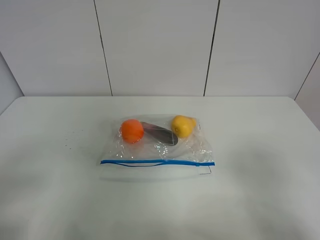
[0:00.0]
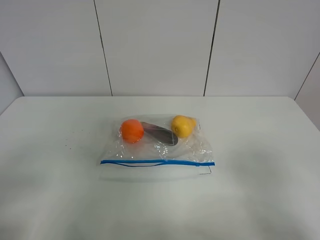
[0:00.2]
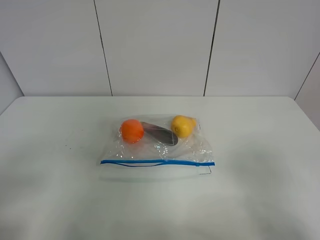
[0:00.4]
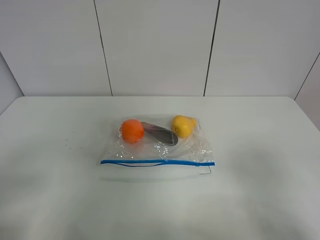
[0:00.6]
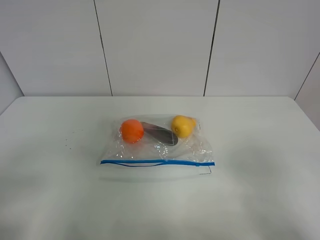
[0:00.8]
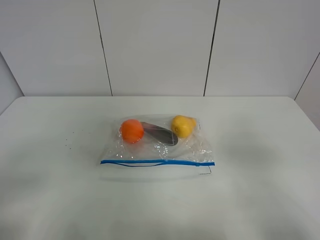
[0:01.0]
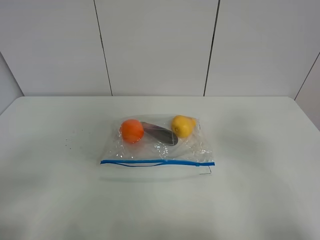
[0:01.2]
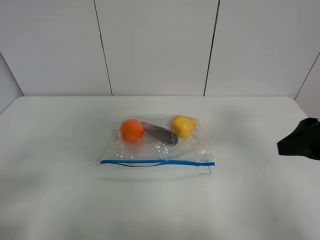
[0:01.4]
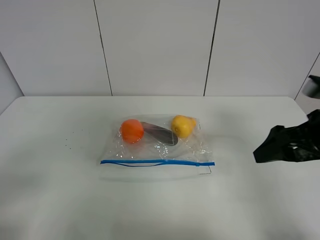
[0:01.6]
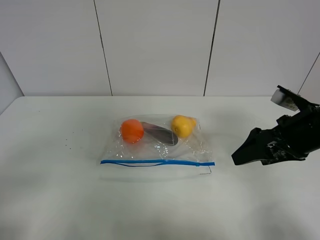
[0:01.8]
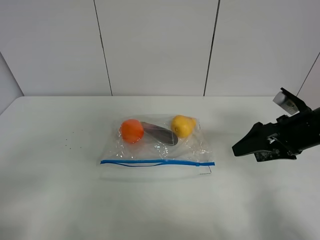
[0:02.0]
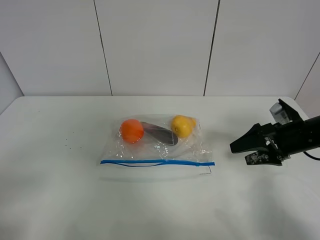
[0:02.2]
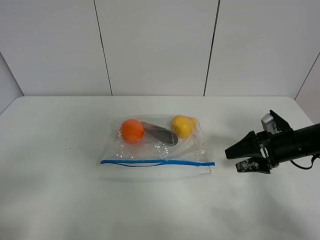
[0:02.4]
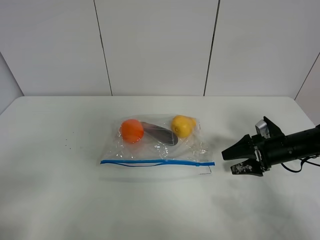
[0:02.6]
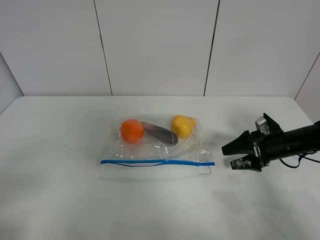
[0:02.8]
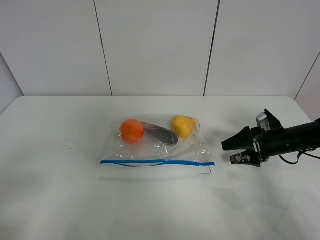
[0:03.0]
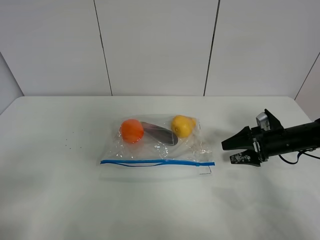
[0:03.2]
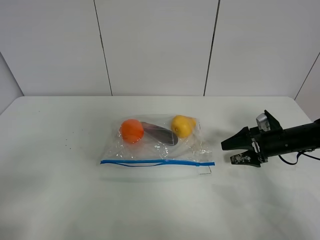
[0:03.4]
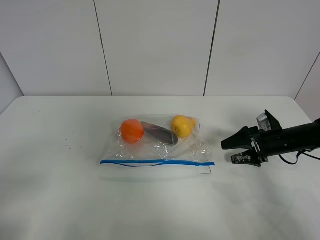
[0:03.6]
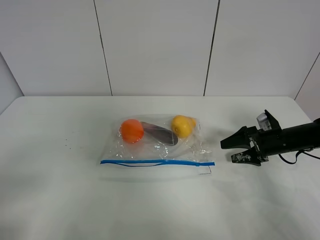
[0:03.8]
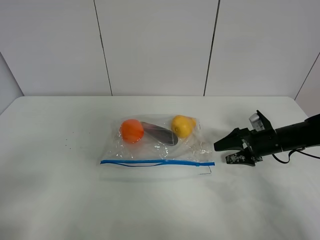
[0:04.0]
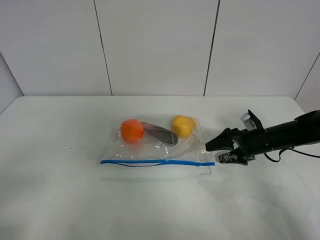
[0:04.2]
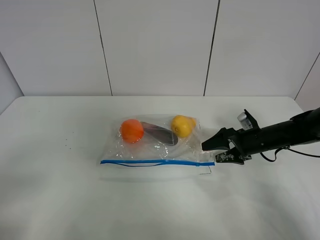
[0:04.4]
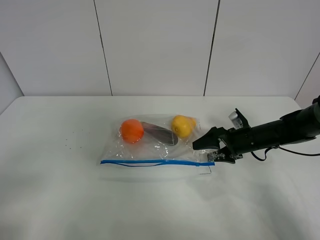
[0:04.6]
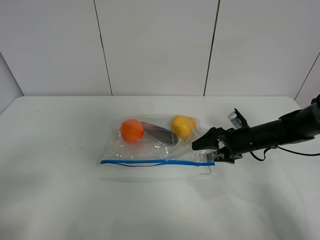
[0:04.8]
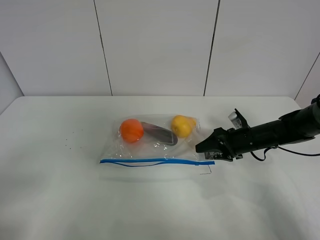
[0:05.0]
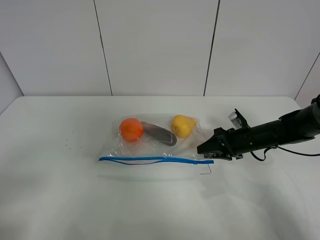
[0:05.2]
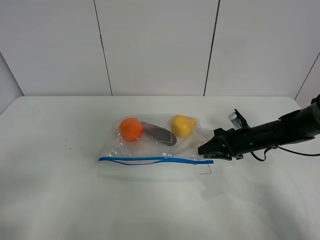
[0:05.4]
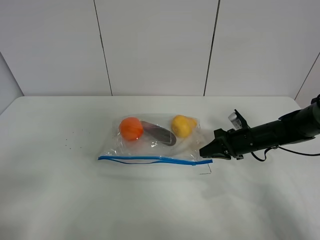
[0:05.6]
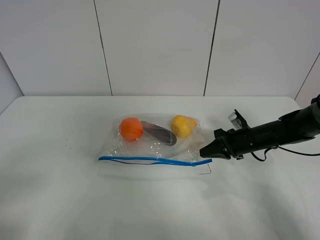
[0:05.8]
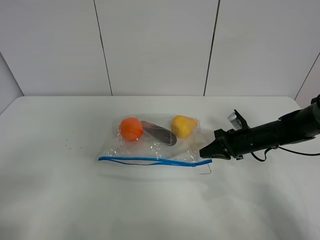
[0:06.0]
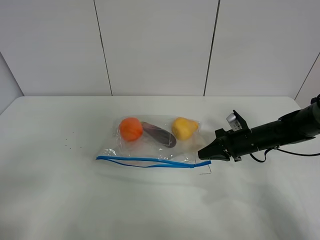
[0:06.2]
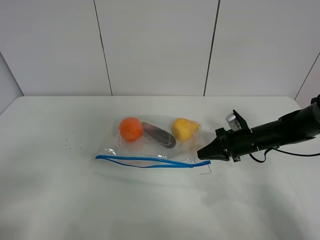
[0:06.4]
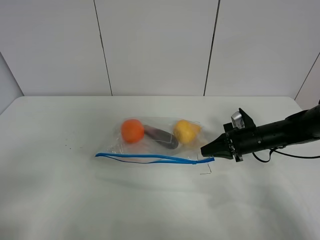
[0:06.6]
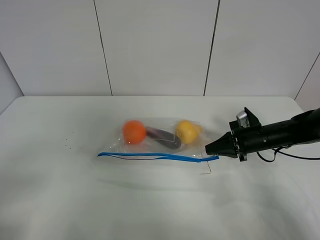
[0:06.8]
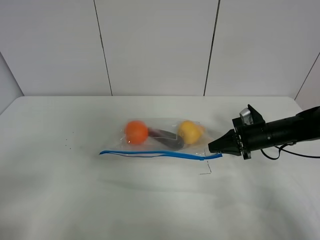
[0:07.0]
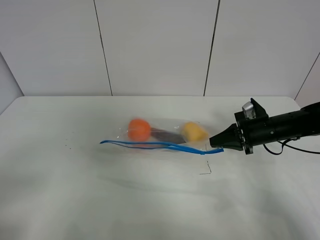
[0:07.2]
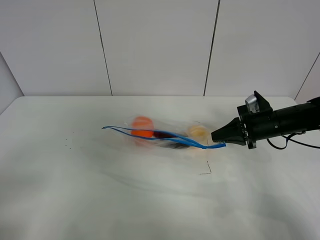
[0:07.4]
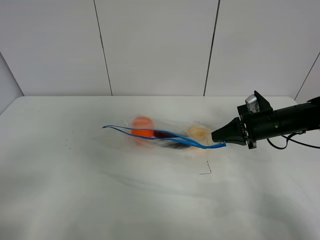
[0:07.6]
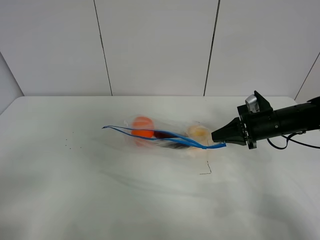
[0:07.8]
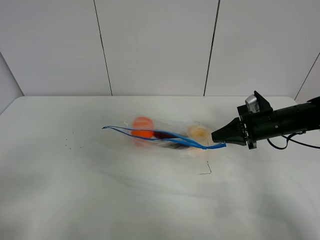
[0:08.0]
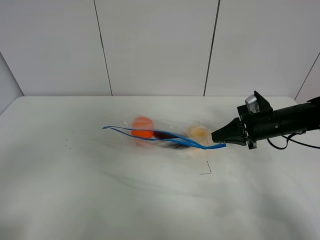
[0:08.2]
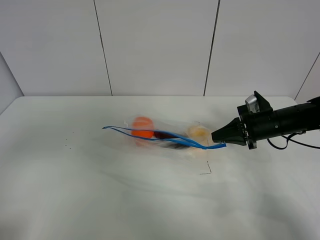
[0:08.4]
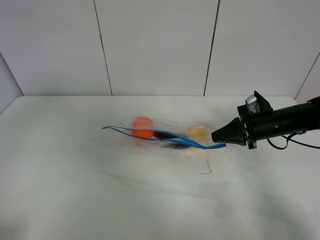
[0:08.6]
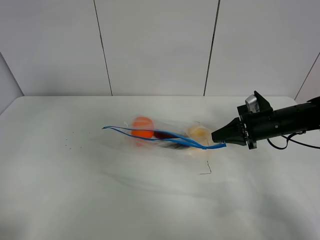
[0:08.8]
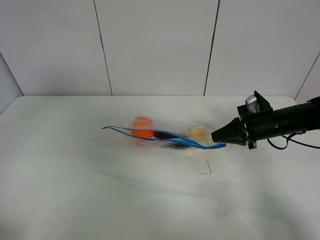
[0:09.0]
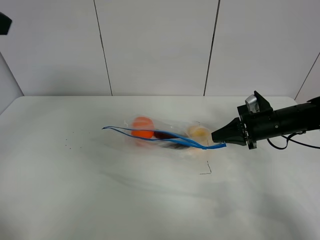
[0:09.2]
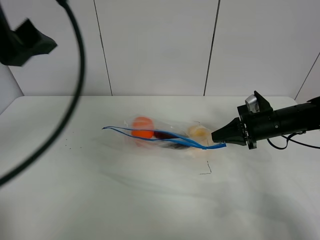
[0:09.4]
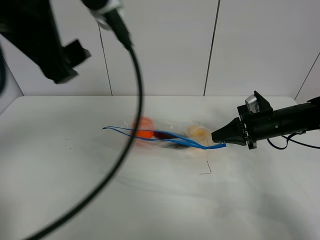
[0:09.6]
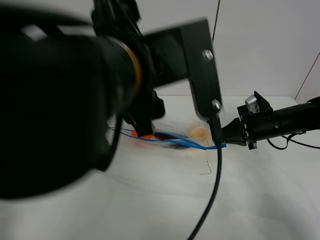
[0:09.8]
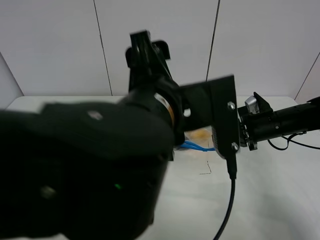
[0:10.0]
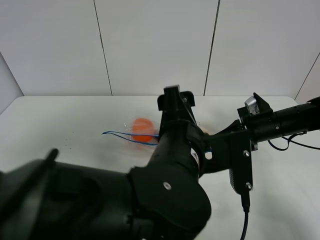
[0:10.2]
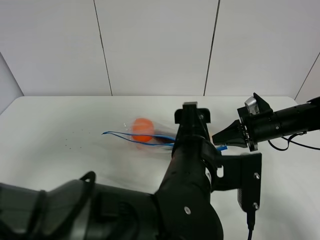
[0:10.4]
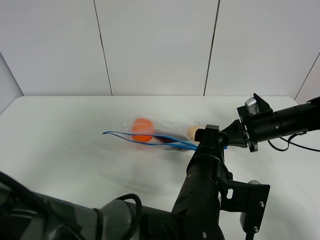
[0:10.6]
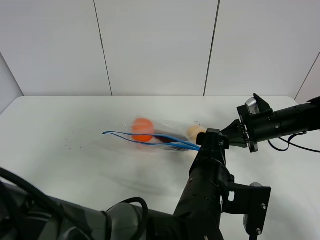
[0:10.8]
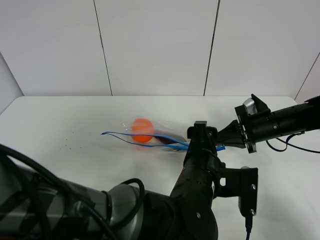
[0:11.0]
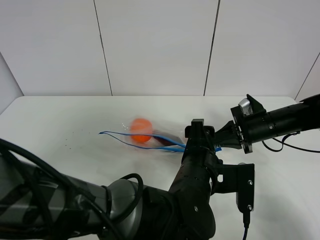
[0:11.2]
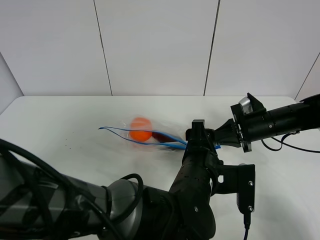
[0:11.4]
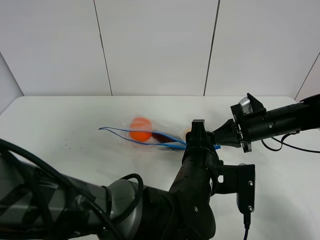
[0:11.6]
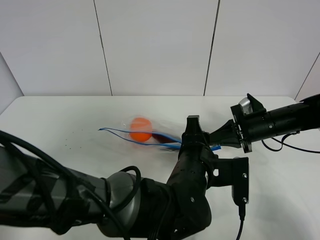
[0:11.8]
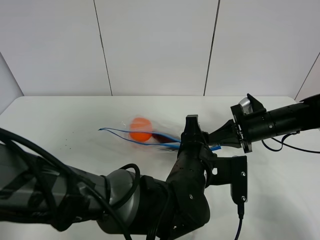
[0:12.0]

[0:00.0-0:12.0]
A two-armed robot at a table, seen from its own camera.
Step, 0:00.0 to 0:05.6: Grasp the fruit bag with right gripper.
Step, 0:05.8 to 0:07.6: Lift the fruit bag with your right gripper.
0:00.0 to 0:01.6: The right gripper is displaced forward by roughly 20 cm.
0:01.6 to 0:03.0: The right gripper shifts approximately 20 cm downward and forward.
0:03.0 to 0:04.4: The right gripper is displaced to the left by some 5 cm.
0:04.4 to 0:06.0: The right gripper closes up.
0:06.0 to 0:07.6: The right gripper goes approximately 5 cm upward.
0:07.6 to 0:09.0: The left gripper is displaced upward and forward by some 25 cm.
0:09.0 to 0:10.4: The left gripper goes about 40 cm to the right and downward.
0:10.4 to 0:12.0: The left gripper ends up approximately 5 cm from where it was, and closes.

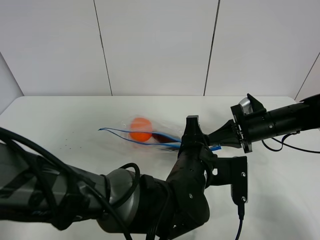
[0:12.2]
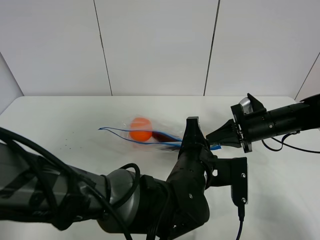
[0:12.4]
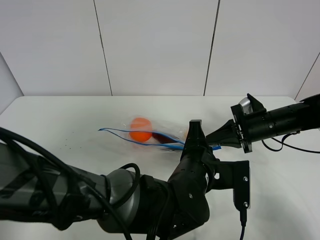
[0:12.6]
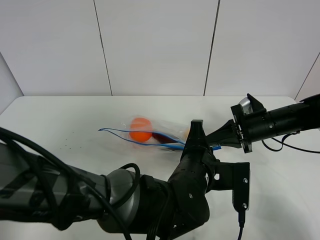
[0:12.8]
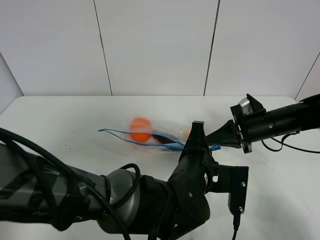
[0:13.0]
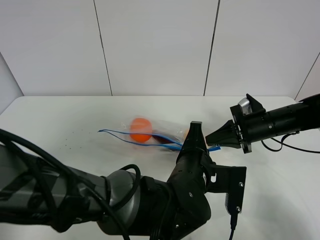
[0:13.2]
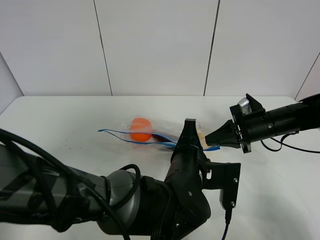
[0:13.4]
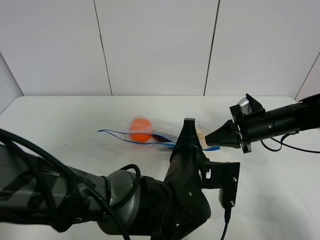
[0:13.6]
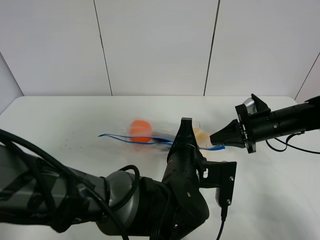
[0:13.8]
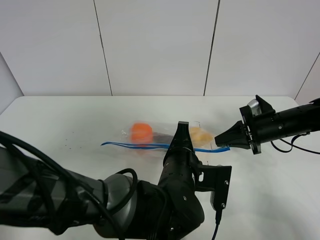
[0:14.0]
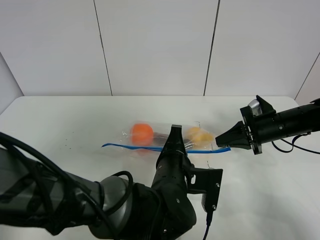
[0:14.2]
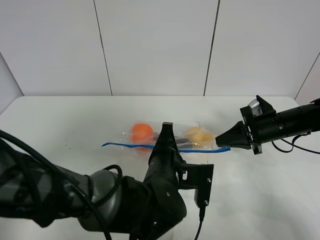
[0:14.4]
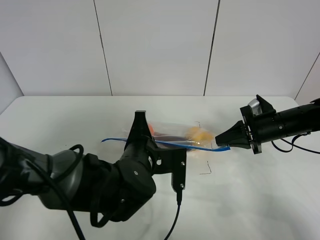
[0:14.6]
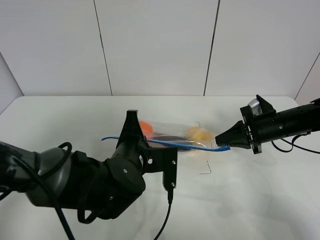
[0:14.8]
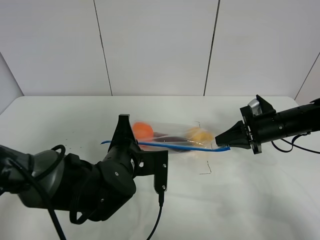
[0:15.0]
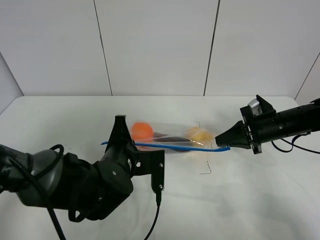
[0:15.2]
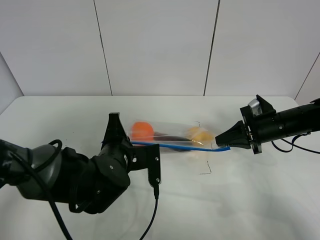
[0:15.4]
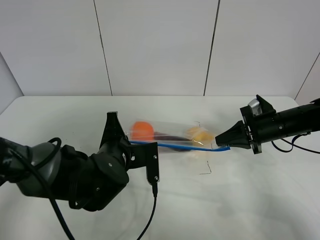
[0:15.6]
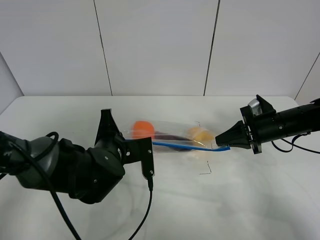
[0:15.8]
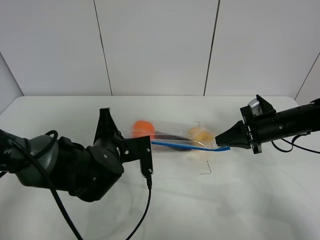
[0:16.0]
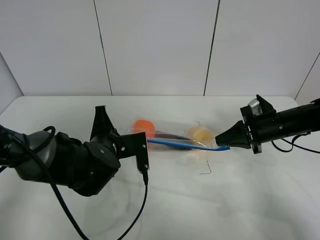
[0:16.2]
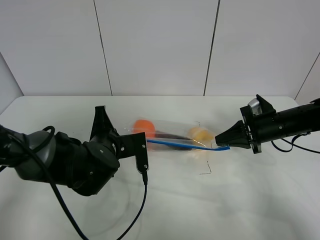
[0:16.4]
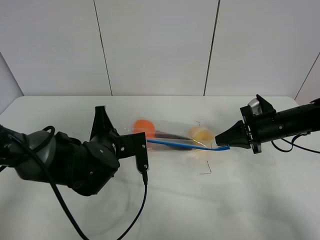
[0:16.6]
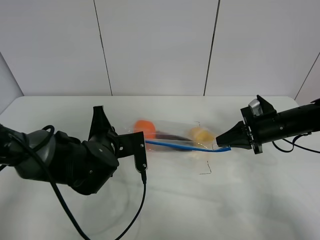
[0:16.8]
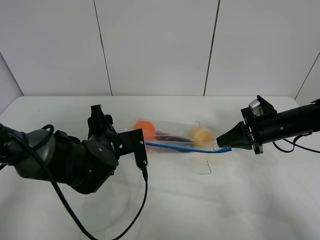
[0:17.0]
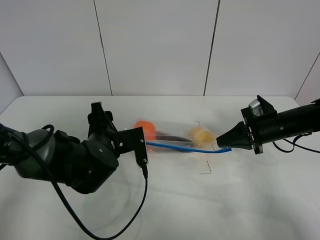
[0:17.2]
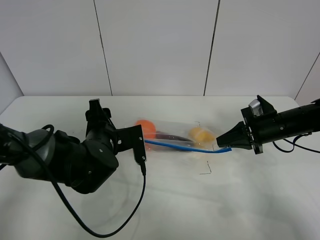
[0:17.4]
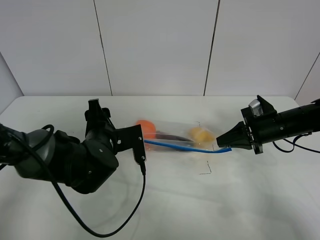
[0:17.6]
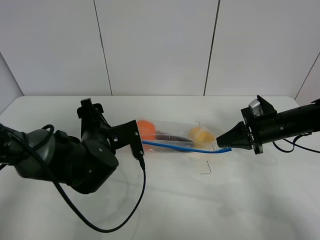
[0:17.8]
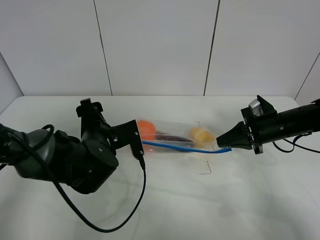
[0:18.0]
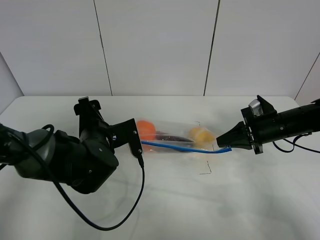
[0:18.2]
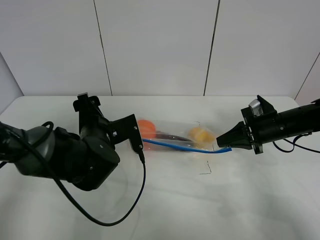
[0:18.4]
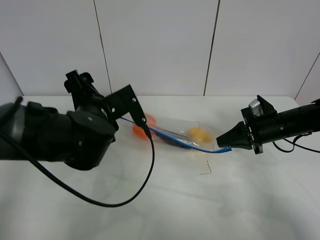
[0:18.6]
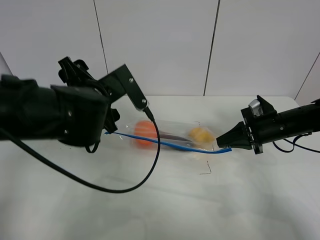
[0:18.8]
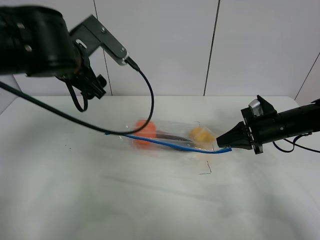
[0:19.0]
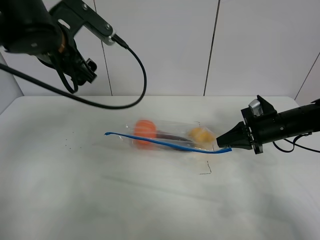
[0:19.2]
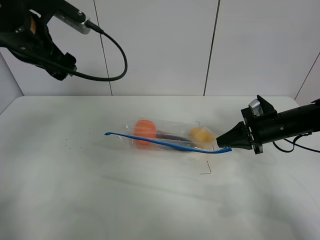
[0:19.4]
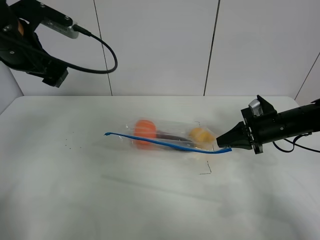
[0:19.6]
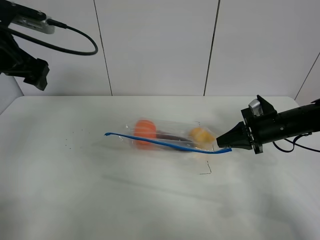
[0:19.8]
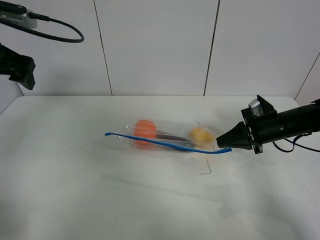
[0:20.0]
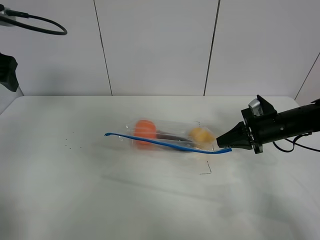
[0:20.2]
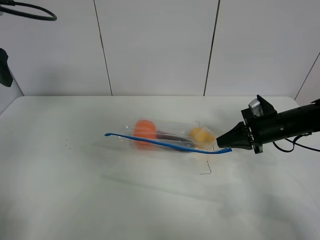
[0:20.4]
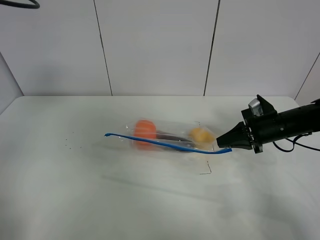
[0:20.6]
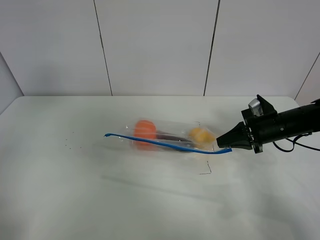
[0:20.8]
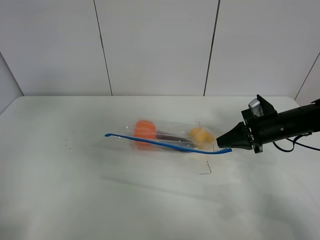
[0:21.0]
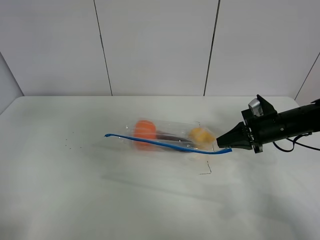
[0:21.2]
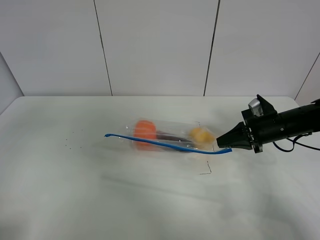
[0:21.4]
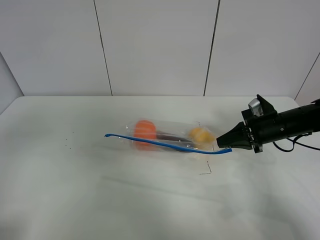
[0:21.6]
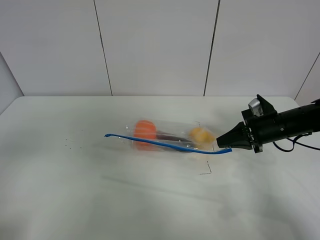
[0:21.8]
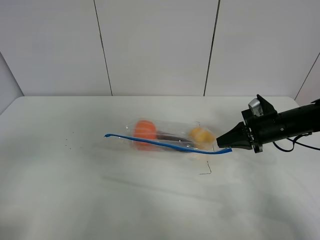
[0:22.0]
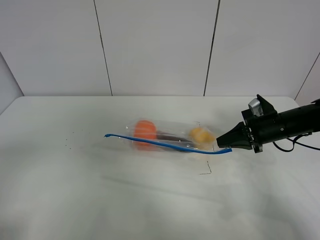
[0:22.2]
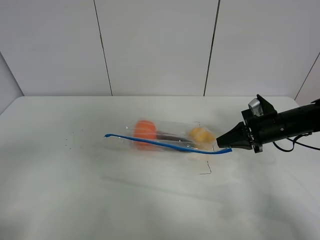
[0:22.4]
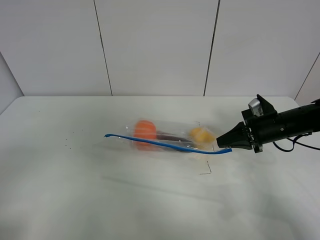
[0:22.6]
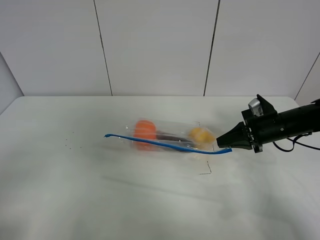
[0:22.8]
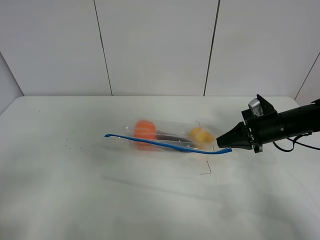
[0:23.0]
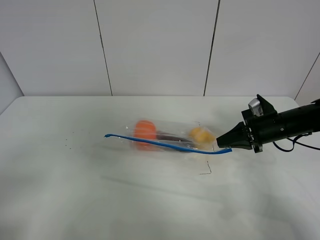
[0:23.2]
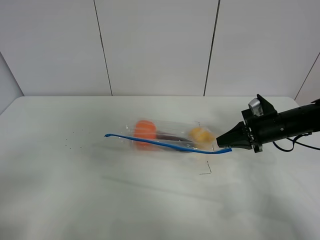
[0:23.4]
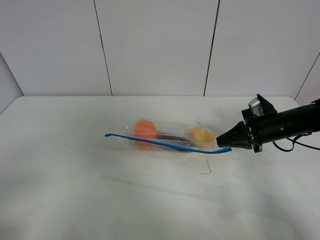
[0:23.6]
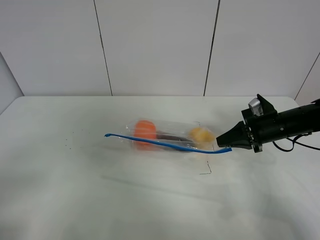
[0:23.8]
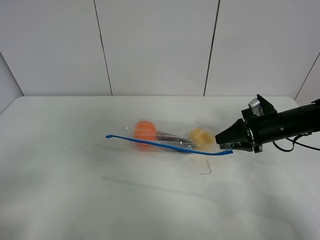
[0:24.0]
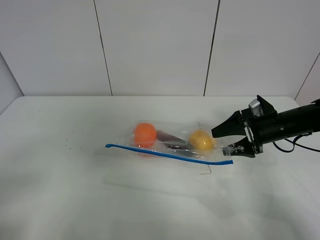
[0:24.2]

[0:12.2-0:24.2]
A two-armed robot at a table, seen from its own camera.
Step, 0:12.2 to 0:17.2: Pull the fruit bag with left gripper.
0:12.2 to 0:13.8: The left gripper closes.
0:13.8 to 0:15.2: The left gripper travels to the left by roughly 10 cm.
0:15.2 to 0:16.6: There are only small adjustments of the grippers.
0:16.6 to 0:18.2: The left gripper opens its fingers.
0:18.2 to 0:19.8: The left gripper travels upward and to the left by some 25 cm.
0:19.8 to 0:21.2: The left gripper goes roughly 15 cm backward.
0:22.6 to 0:24.2: The right gripper opens its fingers.
